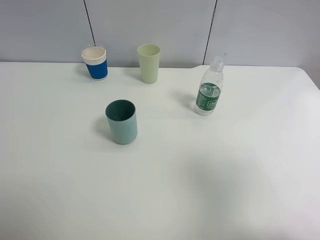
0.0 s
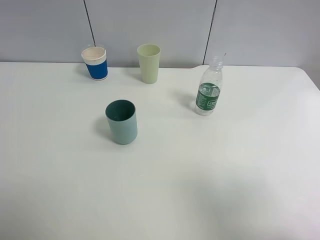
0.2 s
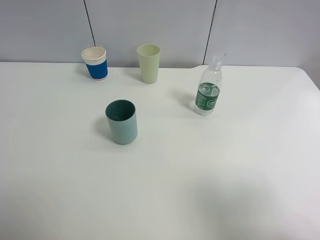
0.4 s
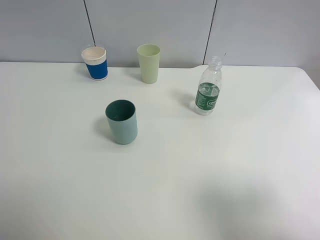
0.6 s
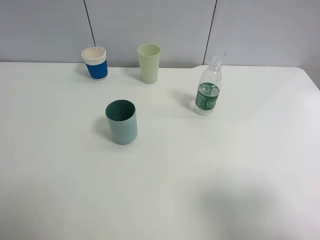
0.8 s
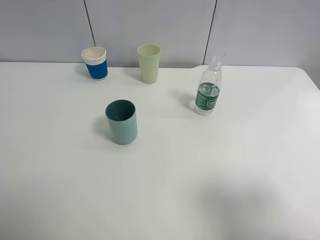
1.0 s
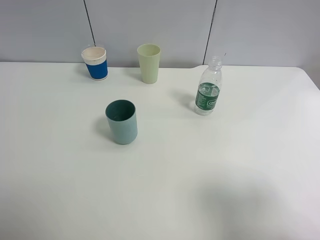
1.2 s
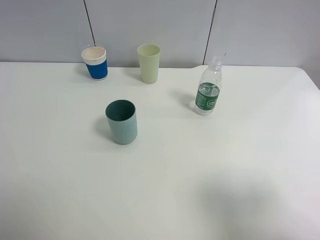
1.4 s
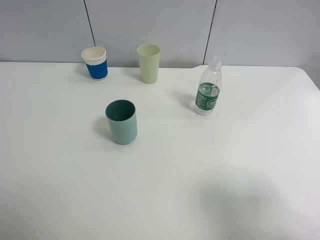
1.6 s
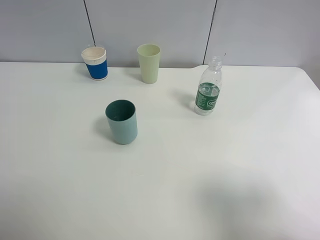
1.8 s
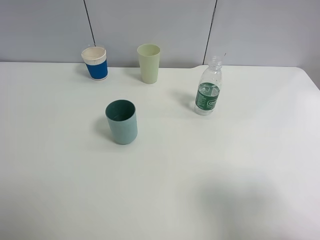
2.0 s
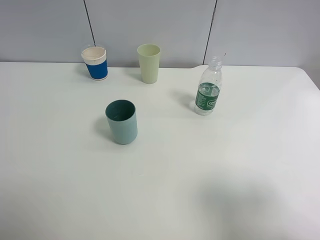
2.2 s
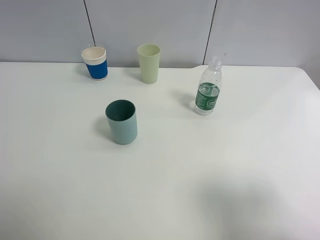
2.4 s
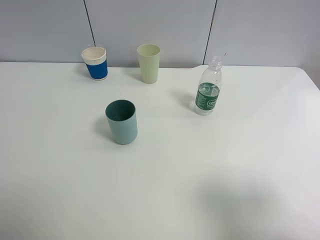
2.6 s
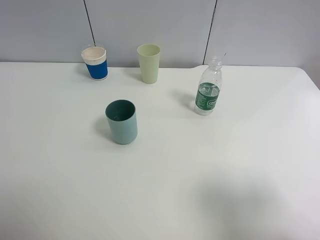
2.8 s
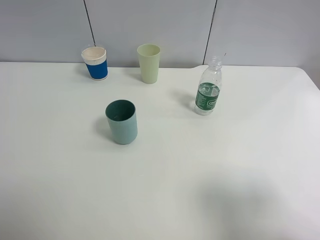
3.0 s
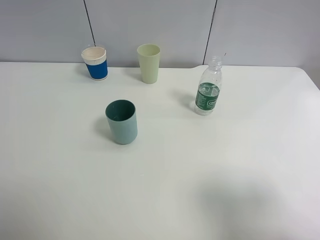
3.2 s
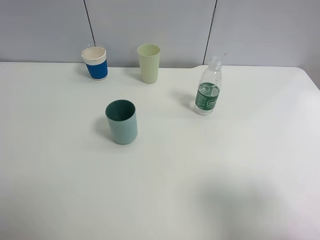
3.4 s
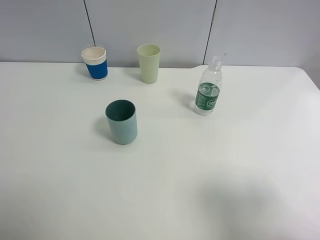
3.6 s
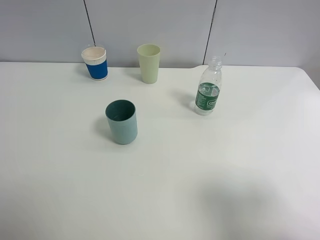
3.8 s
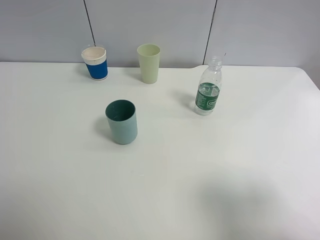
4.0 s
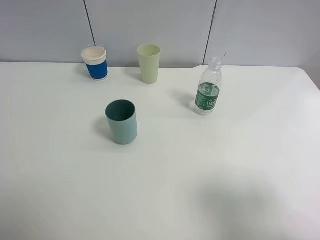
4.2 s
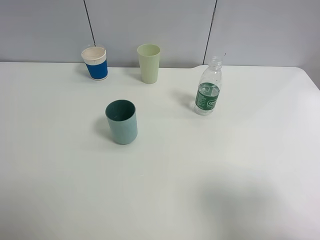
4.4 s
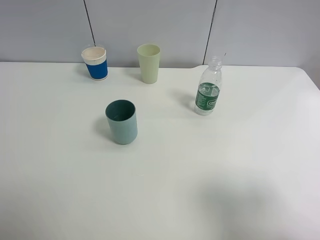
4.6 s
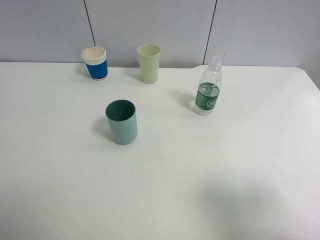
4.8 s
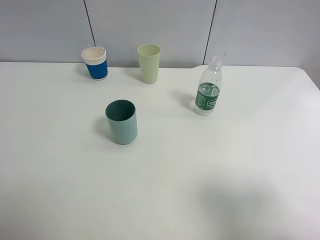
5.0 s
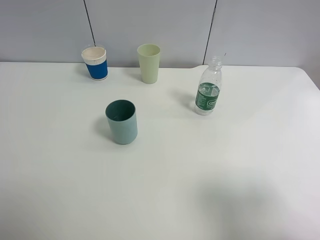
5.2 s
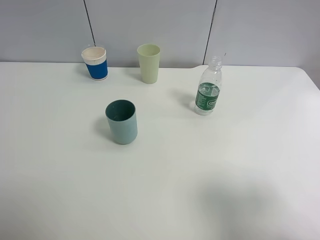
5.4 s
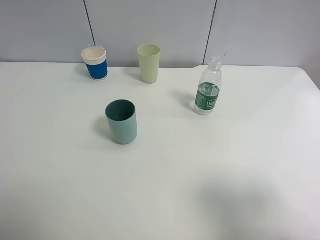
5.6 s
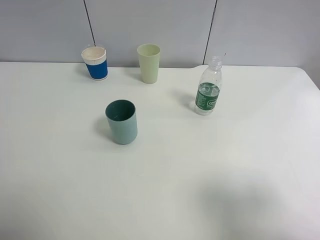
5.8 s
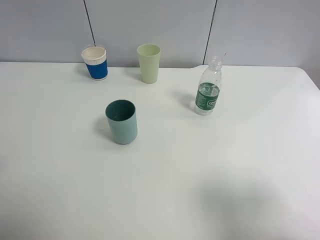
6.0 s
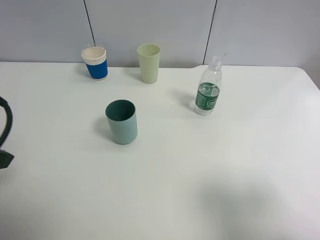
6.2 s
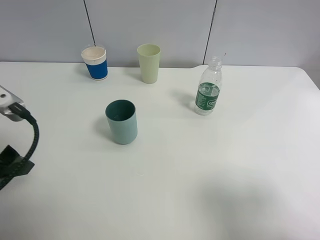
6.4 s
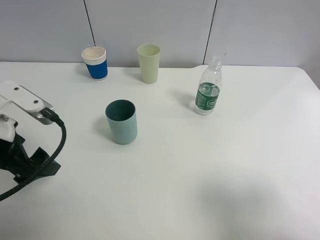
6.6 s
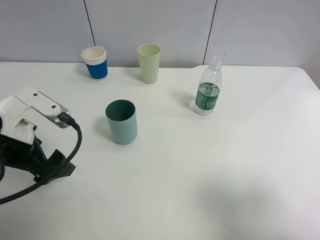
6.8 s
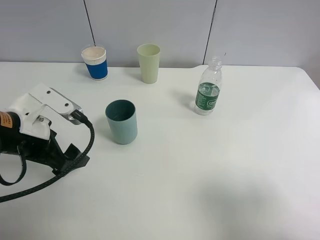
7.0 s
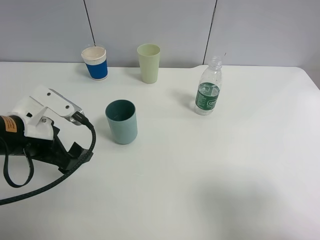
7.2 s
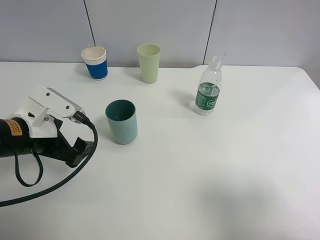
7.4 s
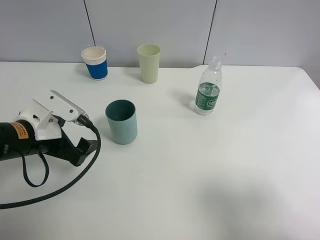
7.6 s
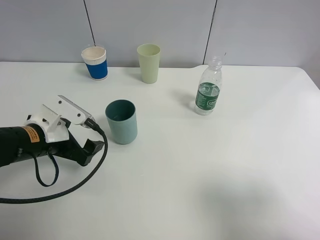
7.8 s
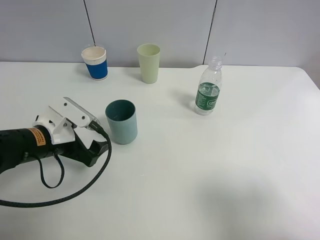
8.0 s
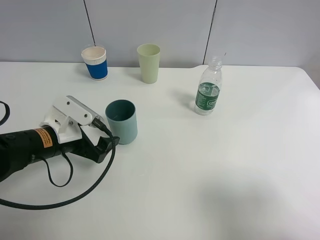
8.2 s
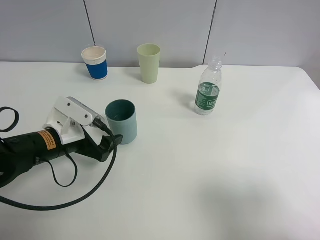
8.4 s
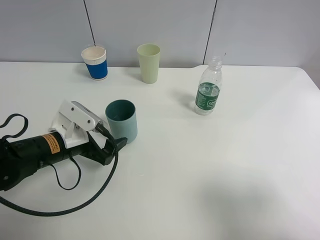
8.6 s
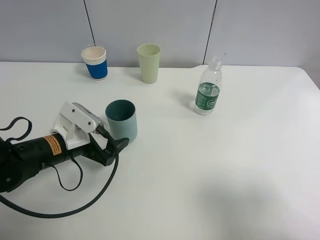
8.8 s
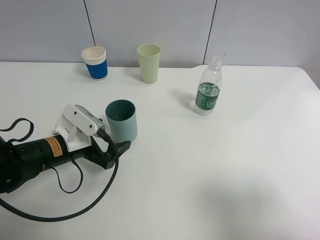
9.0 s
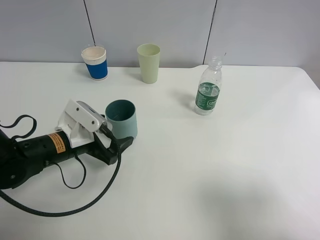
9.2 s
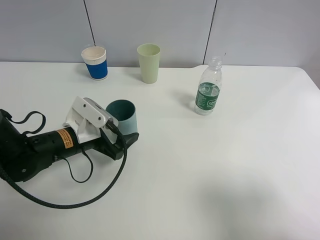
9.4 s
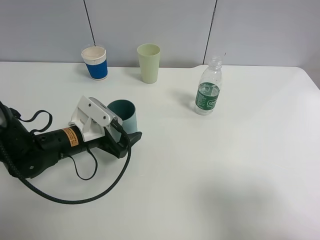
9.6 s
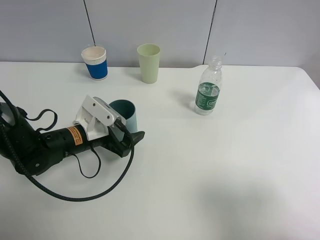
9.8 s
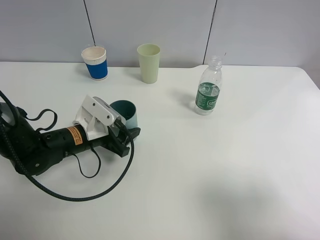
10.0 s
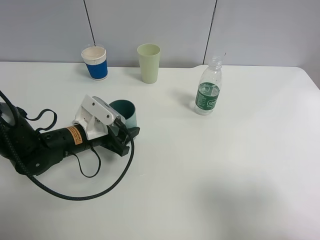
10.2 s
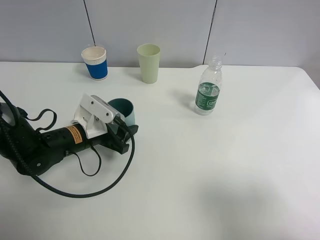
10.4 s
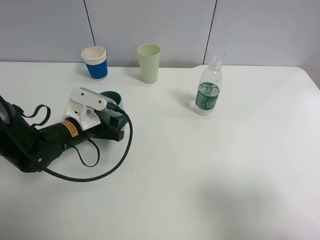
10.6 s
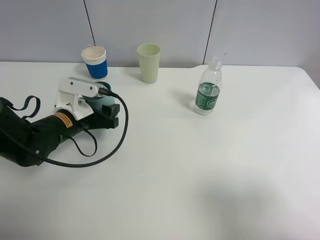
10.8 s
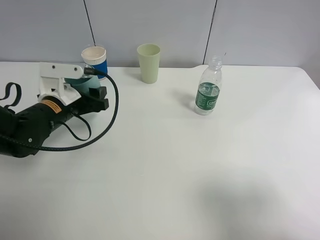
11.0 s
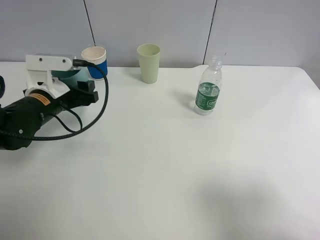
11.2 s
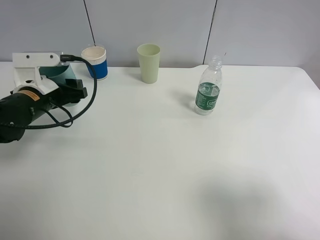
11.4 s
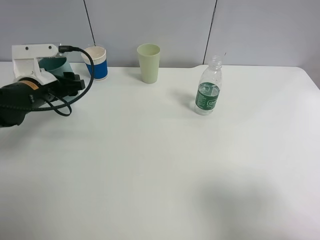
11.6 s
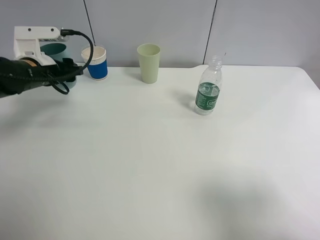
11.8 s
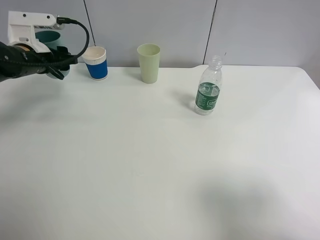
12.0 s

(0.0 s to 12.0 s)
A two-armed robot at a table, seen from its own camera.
Task of the whole recording: use a clamp to hold the bottle of the drink, pour the beverage into a random cup, then clamp the cup containing the drink and pour the drink into another random cup.
Step, 0.0 s - 11.6 s: Pick up the blue plastic cup bottle with left gripper.
0.0 s - 1.6 s: The right gripper is displaced downward by approximately 5 cm.
1.6 s - 4.4 s: Both grippers stay about where they are.
6.0 s - 7.6 s: The left gripper travels downward, forward and to the right by roughly 20 cm.
7.6 s - 9.0 s: The left gripper goes approximately 5 cm downward.
9.0 s - 10.4 s: The left gripper closes up.
10.4 s - 12.0 s: The left gripper shifts roughly 20 cm upward, to the left and forward.

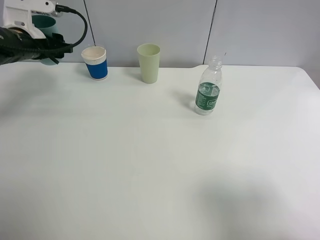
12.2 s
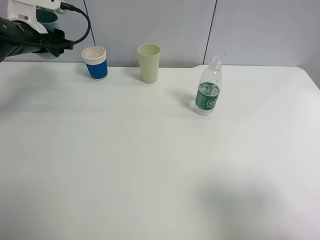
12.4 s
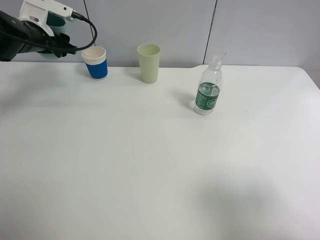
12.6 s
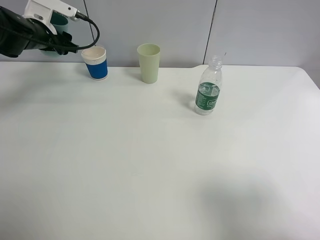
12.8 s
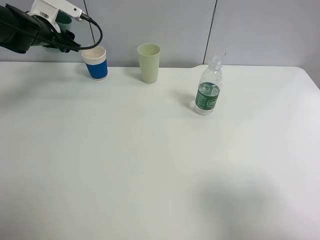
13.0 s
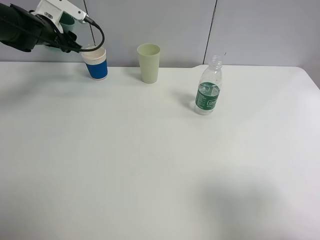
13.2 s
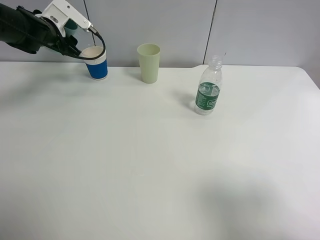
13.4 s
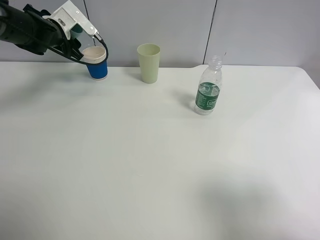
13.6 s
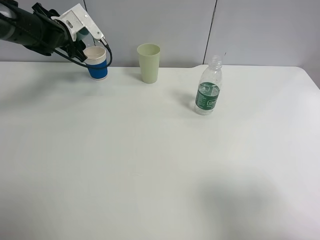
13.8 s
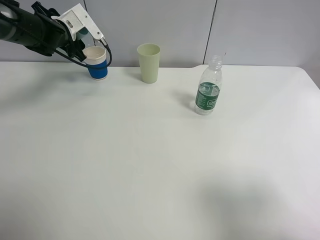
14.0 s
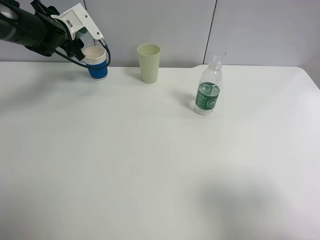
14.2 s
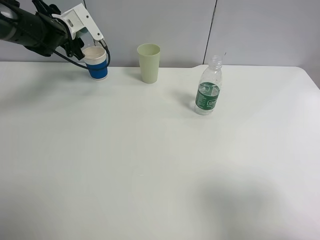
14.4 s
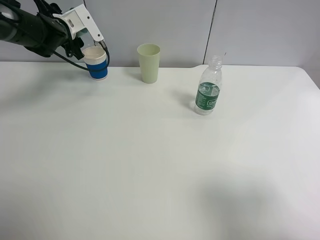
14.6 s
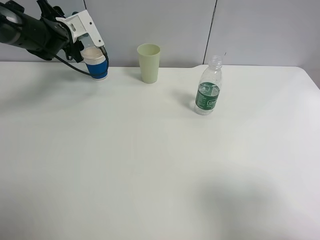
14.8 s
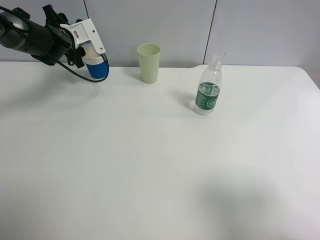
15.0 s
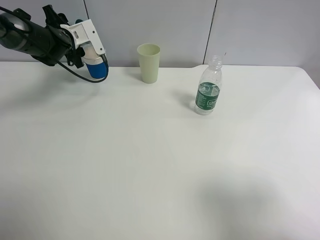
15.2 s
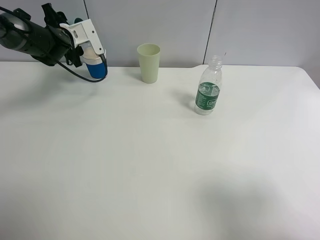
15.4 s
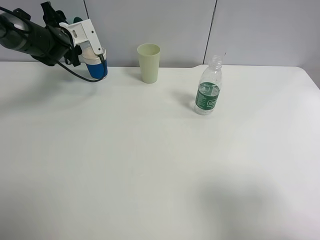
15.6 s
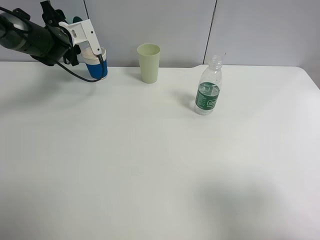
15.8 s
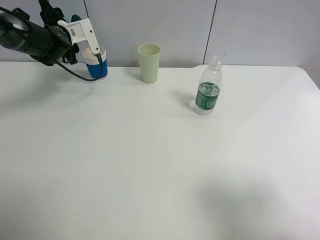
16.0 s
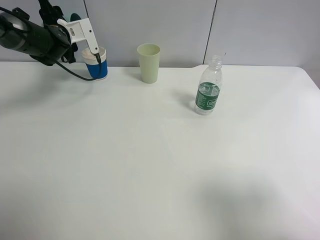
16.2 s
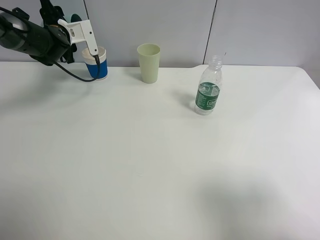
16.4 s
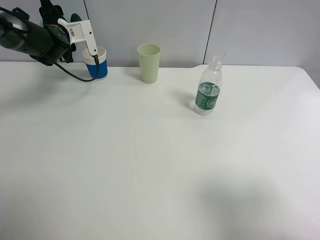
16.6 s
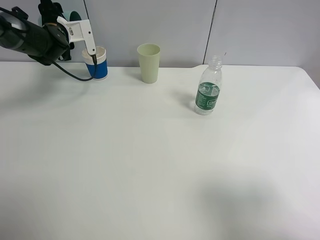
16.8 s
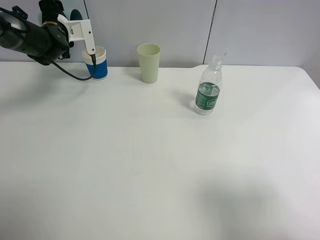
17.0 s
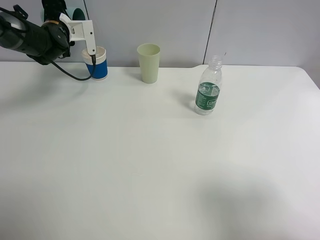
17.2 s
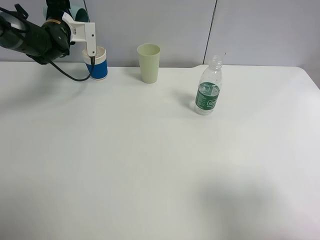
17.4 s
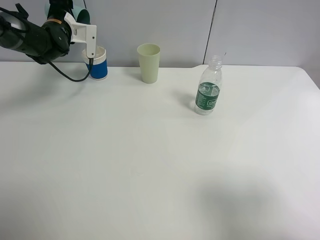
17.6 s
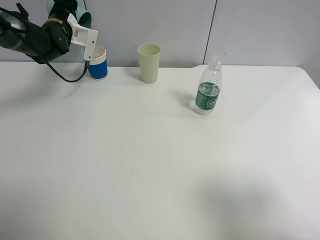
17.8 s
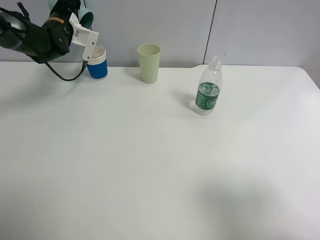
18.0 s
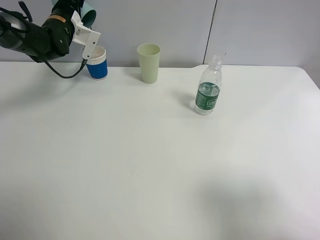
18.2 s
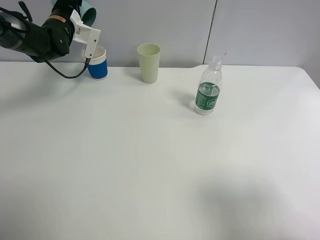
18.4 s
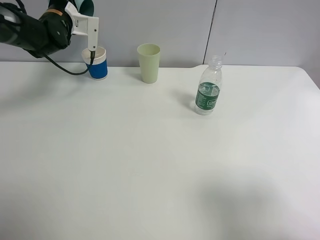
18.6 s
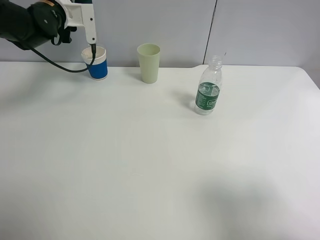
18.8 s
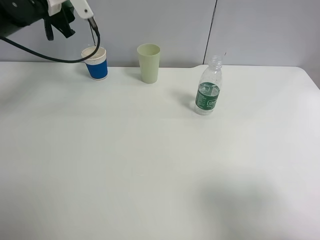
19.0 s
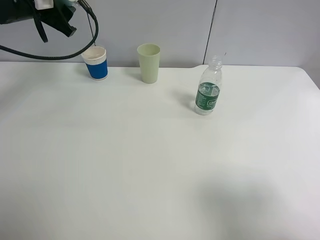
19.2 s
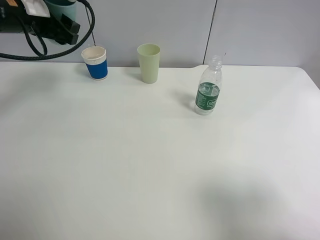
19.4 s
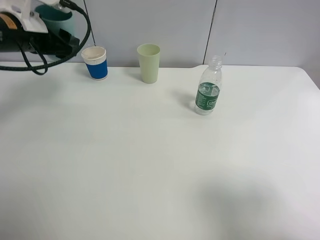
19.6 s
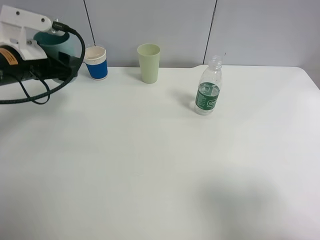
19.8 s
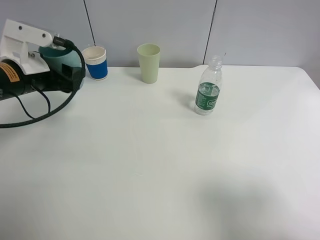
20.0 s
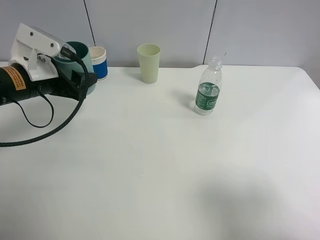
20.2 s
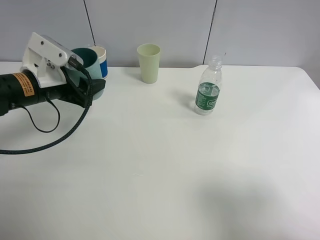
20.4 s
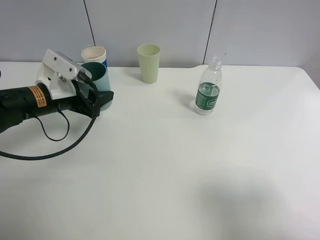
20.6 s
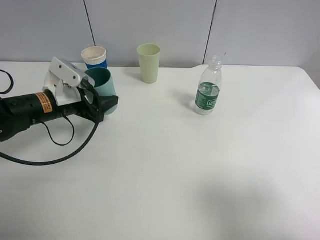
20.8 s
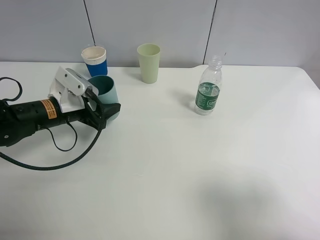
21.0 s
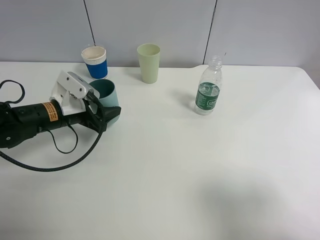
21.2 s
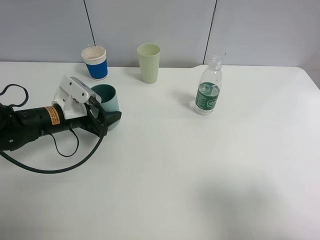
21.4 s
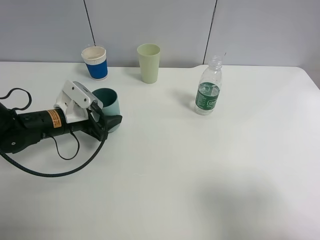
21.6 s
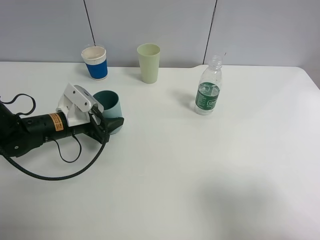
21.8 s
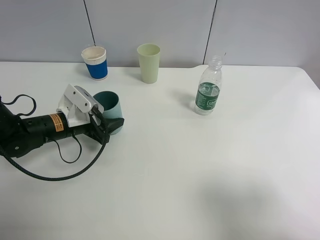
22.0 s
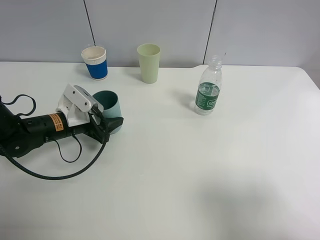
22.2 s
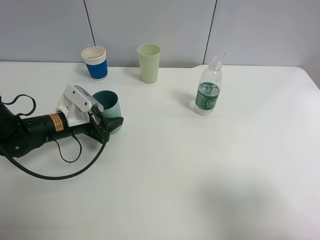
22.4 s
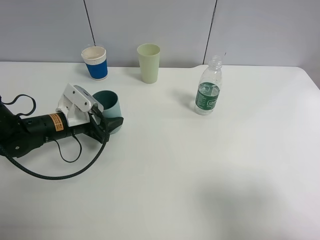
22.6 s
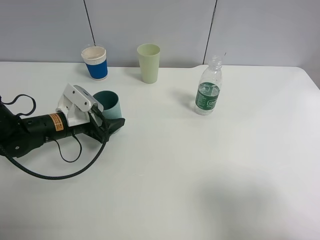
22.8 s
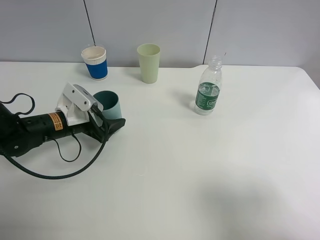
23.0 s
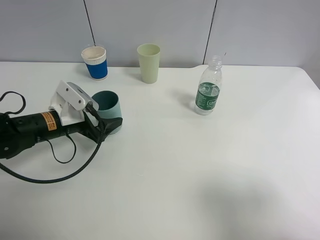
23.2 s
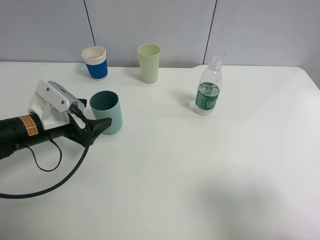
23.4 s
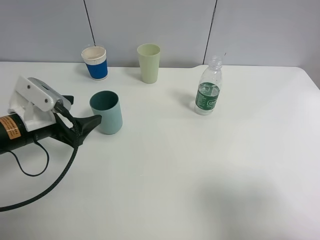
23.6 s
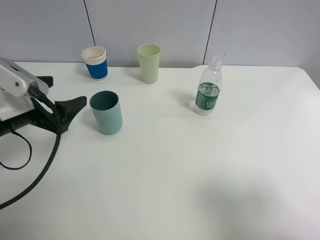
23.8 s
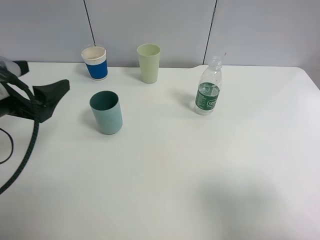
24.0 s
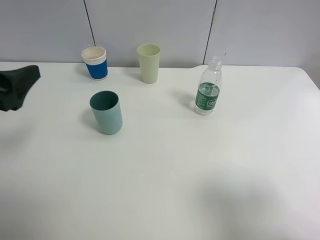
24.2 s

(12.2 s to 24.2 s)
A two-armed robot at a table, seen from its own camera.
Task of the whole recording: use a clamp to hold the bottle of the drink, pour the beverage into a random cup, then clamp the cup containing the drink and pour the drink into another random cup.
Step, 12.2 s - 19.8 s: Pour water into the paper cup with left gripper.
Step, 20.0 s - 23.6 s: Place the blue plastic cup on the table with left gripper.
12.2 s - 13.8 s: The left gripper is displaced forward by some 10 cm.
13.8 s - 15.2 s: The grippers make only small movements.
15.2 s - 16.6 s: The grippers stay close to where they were, moving slightly.
18.2 s - 19.8 s: The left gripper heads backward, covering about 20 cm.
19.8 s - 21.2 s: The left gripper is displaced downward by about 10 cm.
21.2 s - 22.6 s: The grippers make only small movements.
22.6 s - 24.2 s: The left gripper is displaced upward and backward by some 25 cm, and opens its fingers.
